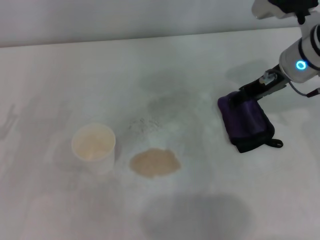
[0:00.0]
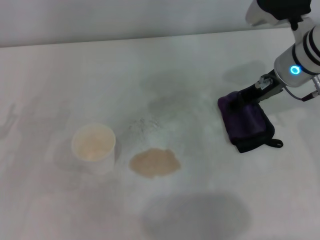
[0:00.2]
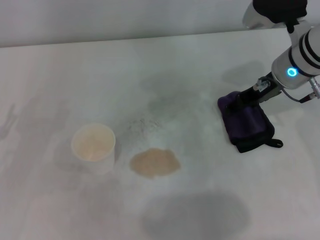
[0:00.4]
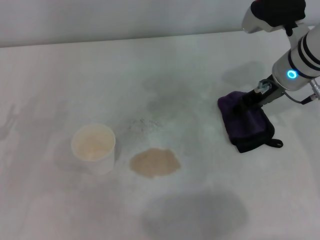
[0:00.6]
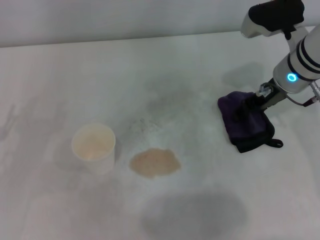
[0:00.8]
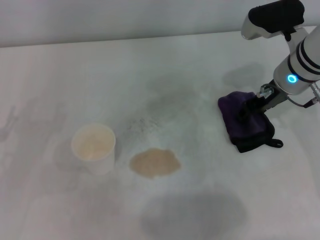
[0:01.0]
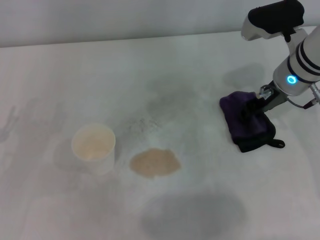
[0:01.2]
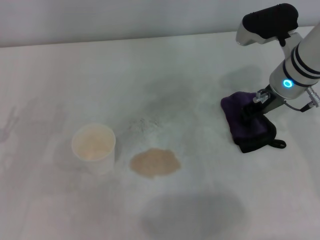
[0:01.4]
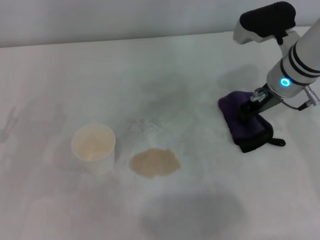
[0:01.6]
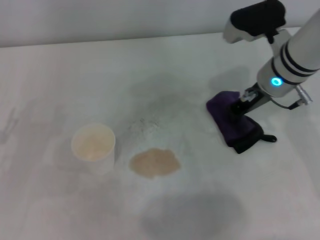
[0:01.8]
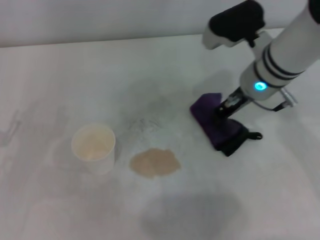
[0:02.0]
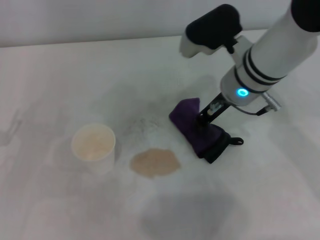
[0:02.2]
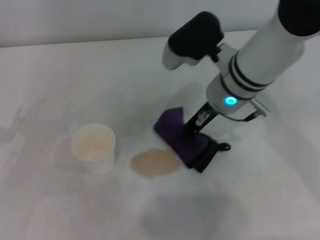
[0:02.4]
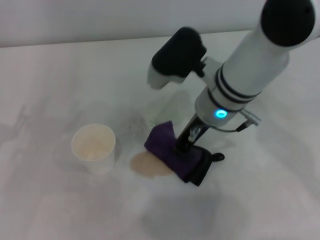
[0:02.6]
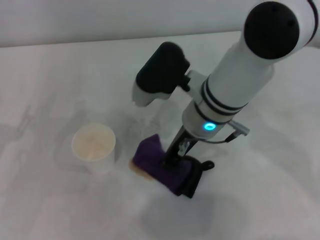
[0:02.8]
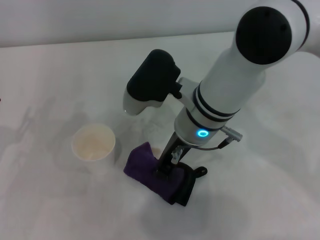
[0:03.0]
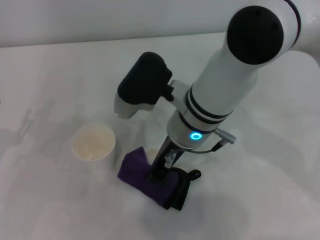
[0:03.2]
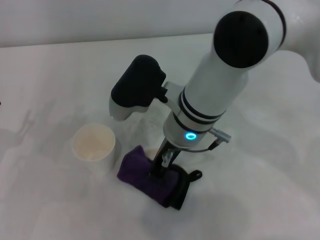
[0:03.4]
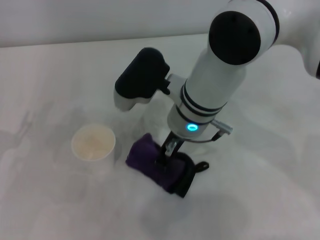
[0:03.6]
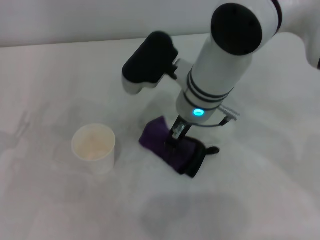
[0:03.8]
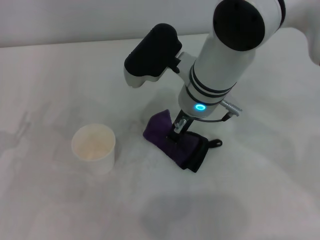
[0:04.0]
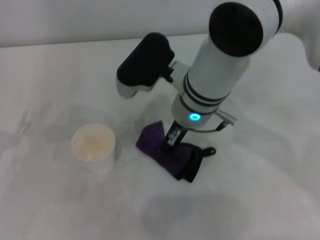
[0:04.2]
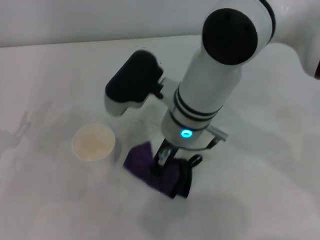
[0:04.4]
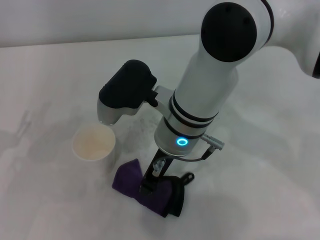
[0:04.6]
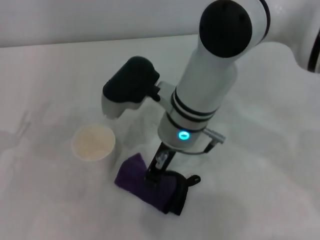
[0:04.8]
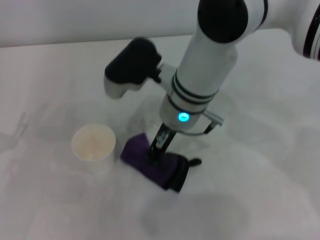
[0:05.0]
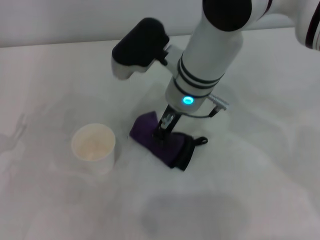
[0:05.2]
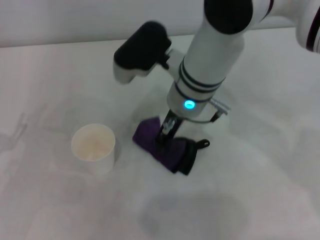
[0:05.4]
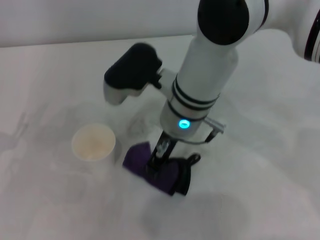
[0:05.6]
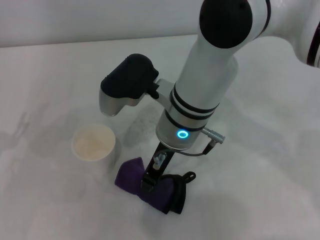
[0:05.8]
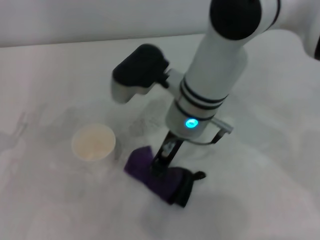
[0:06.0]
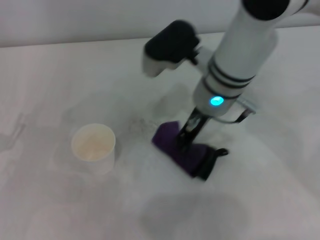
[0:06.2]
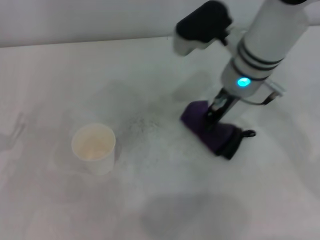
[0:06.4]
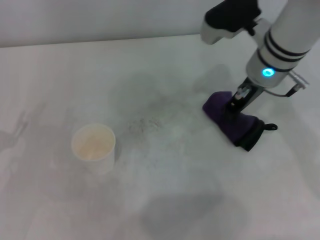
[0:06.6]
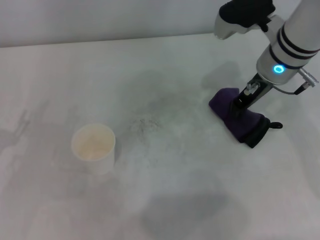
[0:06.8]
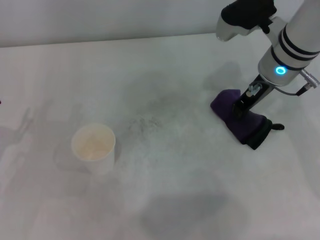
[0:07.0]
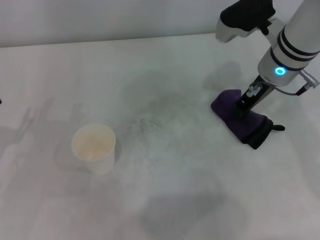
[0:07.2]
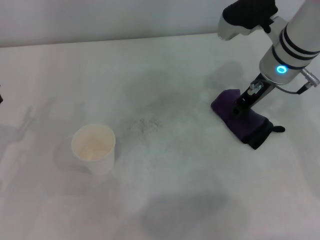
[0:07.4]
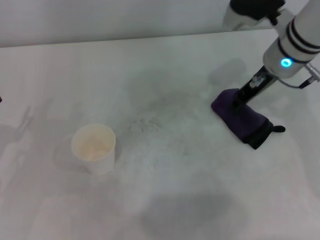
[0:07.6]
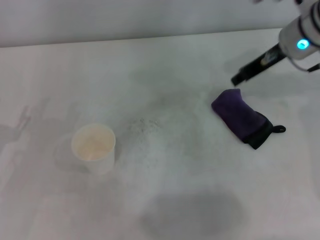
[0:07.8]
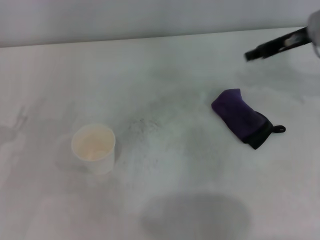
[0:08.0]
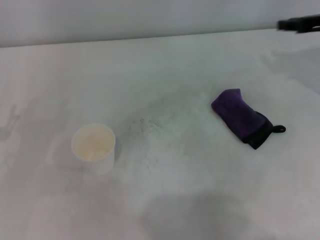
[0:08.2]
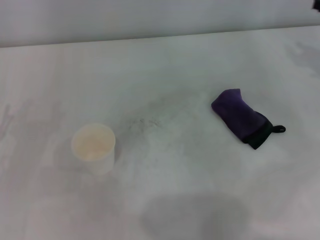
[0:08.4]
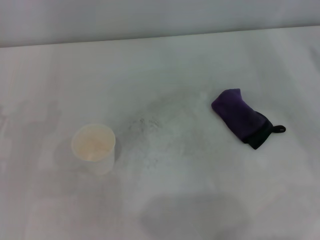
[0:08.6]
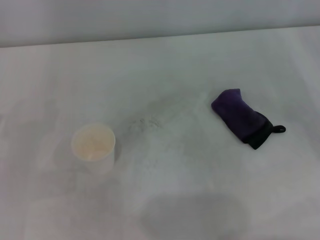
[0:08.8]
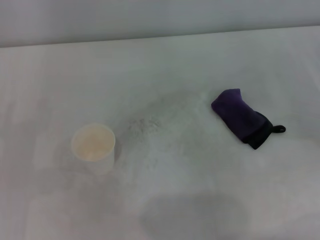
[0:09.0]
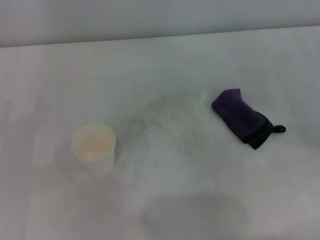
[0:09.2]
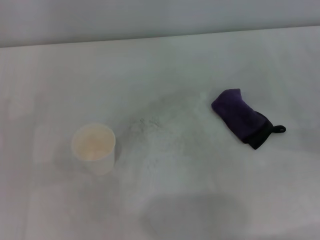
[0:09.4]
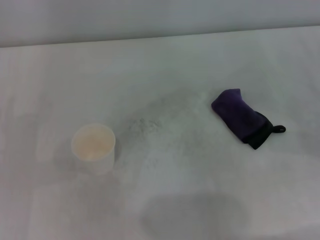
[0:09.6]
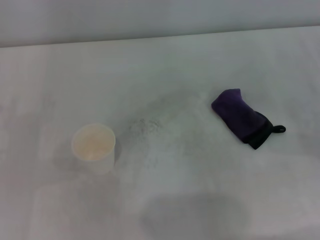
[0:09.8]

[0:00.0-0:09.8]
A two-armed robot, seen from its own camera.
Step, 0:01.2 to 0:06.4: Wipe the stains off the table with the right gripper.
Step, 0:06.6 to 0:07.2: Place the rag on the table with the right gripper.
0:00.0 to 0:01.4: The right gripper closes up.
0:01.4 to 0:02.8: The right gripper travels to the left by approximately 15 cm.
0:02.8 to 0:05.6: The grippers move only a little.
0:05.6 to 0:07.0: The right gripper shifts some 15 cm to the right.
0:07.0 to 0:08.4: The right gripper is displaced to the right by approximately 20 cm, and opens up.
